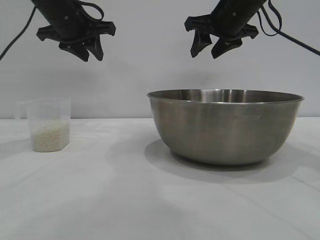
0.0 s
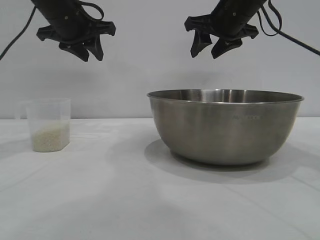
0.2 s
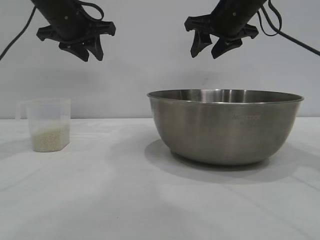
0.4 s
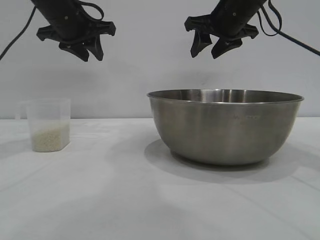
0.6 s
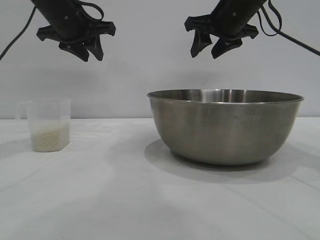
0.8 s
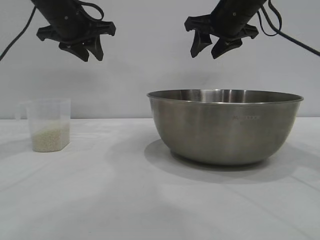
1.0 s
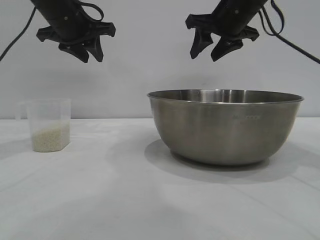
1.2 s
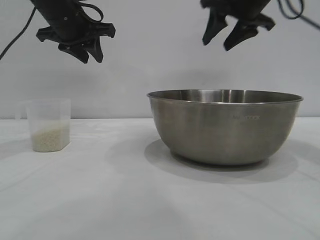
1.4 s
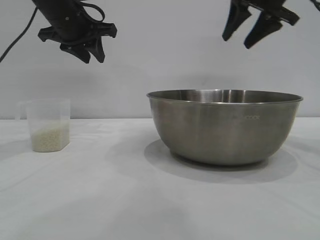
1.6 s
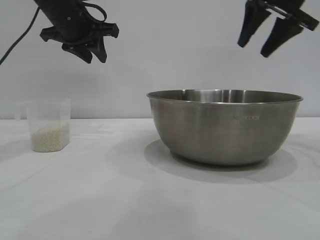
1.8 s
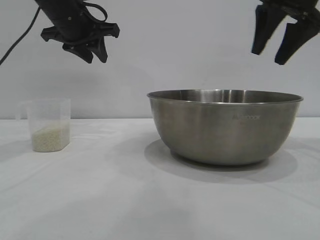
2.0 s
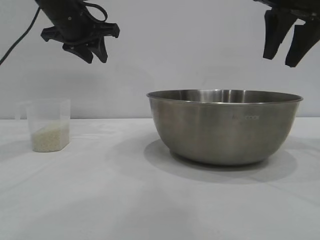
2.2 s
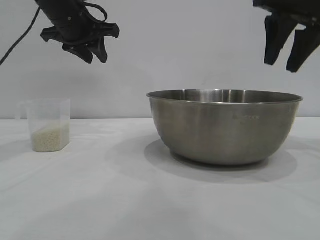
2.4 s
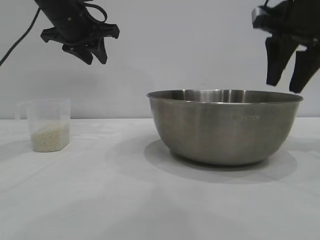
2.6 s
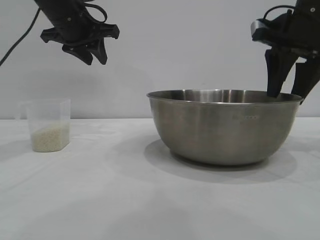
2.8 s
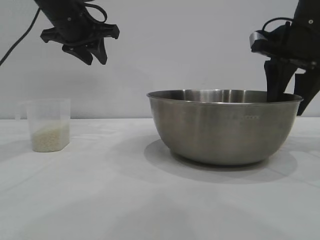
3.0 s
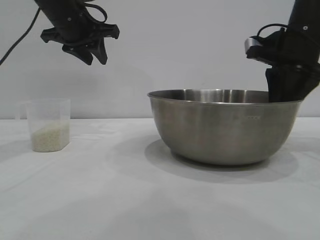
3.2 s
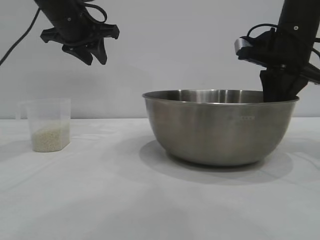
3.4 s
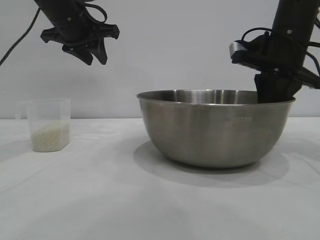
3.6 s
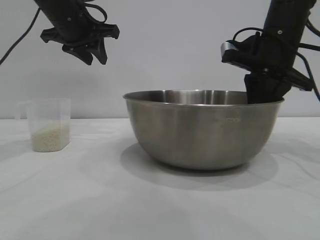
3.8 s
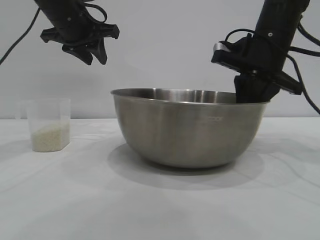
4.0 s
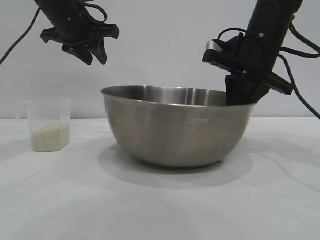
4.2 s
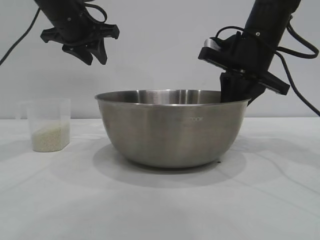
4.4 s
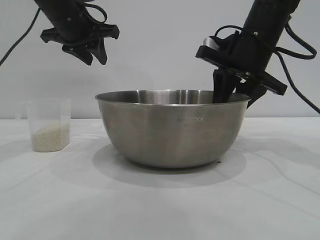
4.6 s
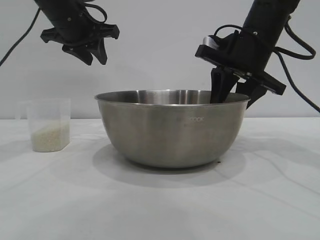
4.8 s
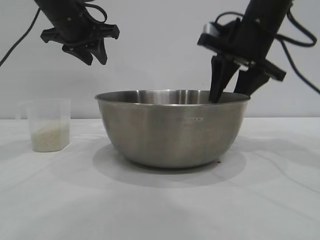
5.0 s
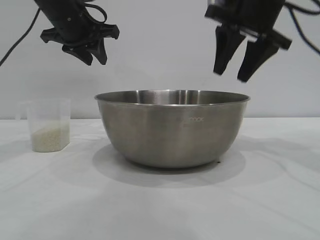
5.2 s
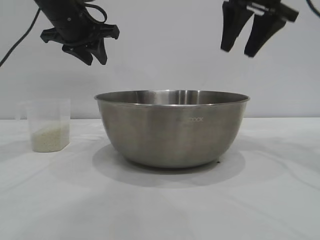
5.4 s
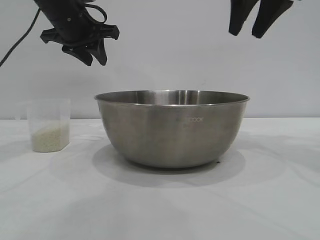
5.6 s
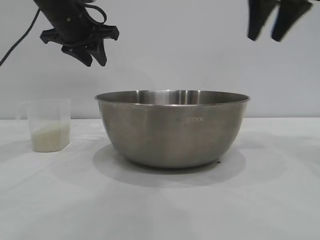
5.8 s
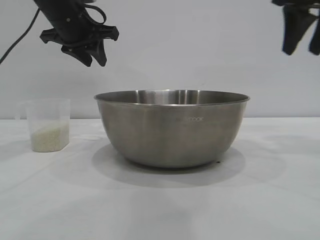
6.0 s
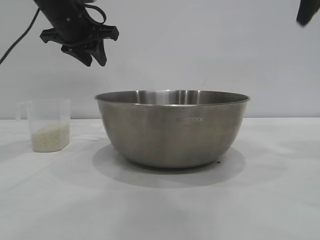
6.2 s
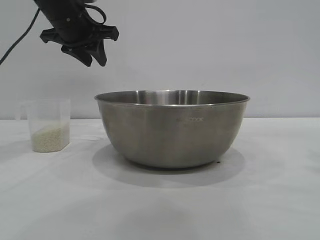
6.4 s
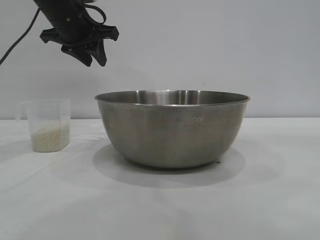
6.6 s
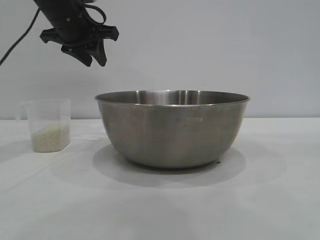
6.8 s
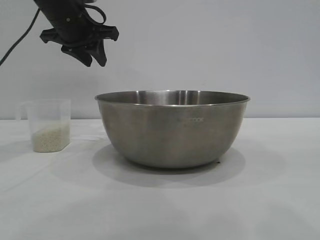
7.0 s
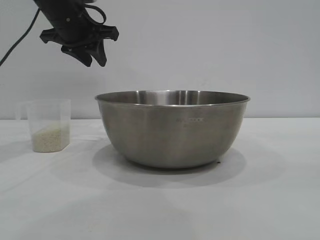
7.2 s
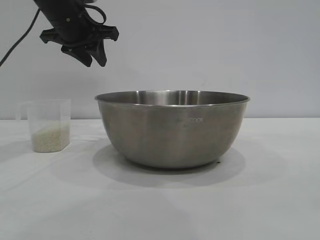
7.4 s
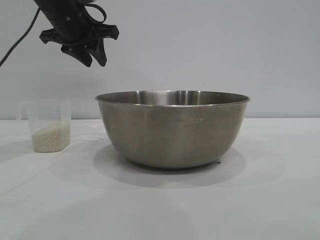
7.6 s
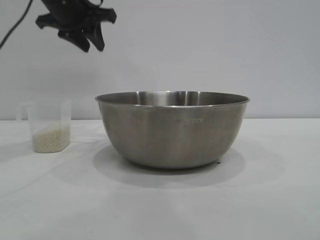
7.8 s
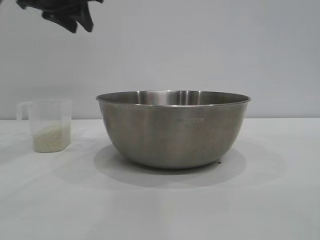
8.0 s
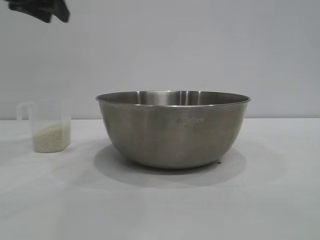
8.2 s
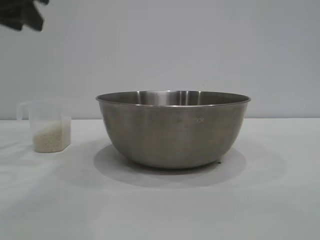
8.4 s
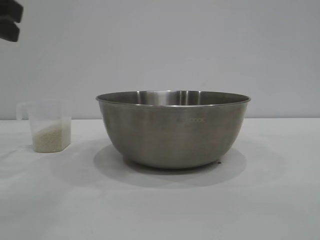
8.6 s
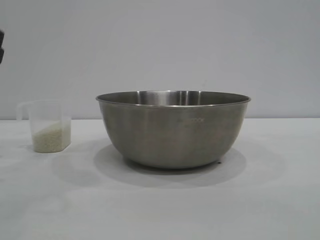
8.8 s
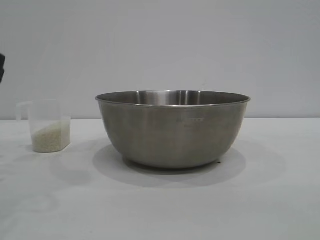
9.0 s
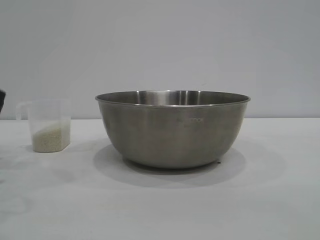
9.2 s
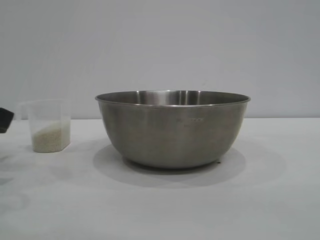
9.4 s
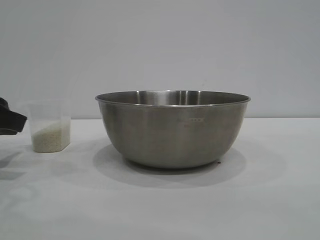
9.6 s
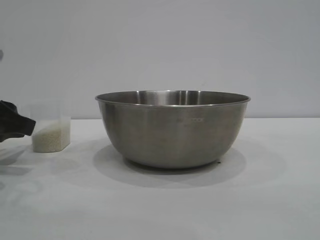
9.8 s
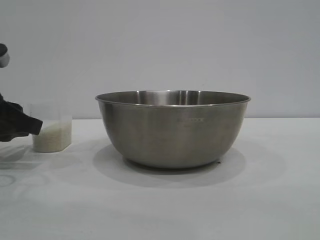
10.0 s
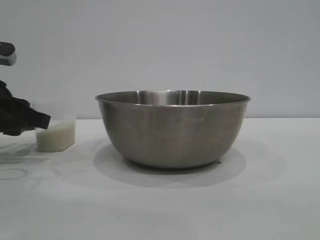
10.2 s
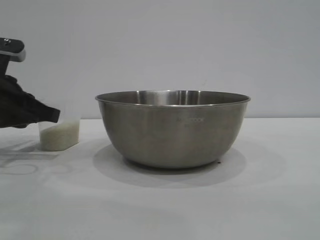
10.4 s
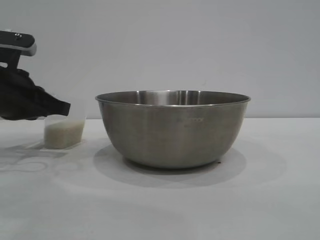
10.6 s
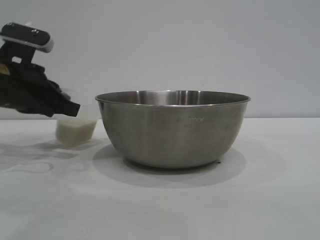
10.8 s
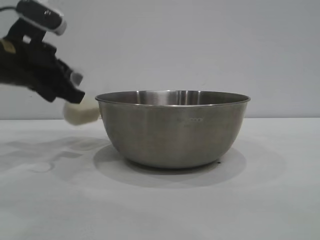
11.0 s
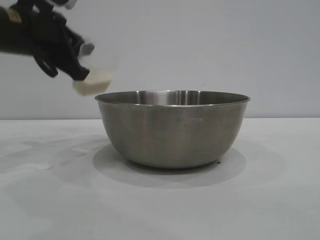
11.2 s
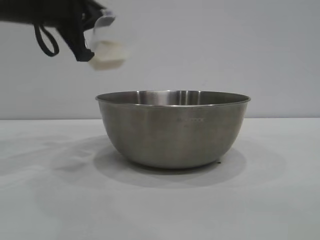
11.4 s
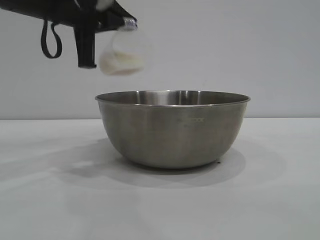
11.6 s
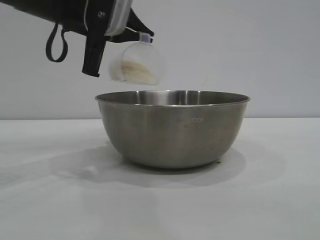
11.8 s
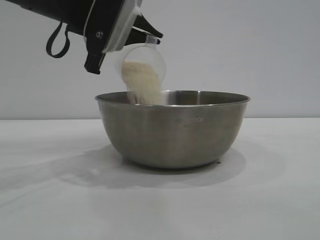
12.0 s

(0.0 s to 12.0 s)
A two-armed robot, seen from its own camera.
Task of the whole recording: the right gripper grasp the rice container and place it in the center of the table, the left gripper grasp the rice scoop and pour the rice into the rice container.
Step, 0.0 s - 5.0 s: Move the bowl to the center of view with the right gripper.
Step, 5.2 s - 11.0 s: Pick up the cup with rice in it with the left gripper.

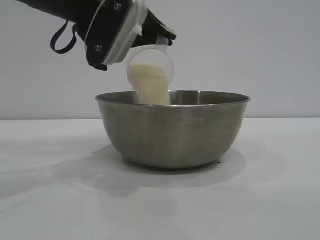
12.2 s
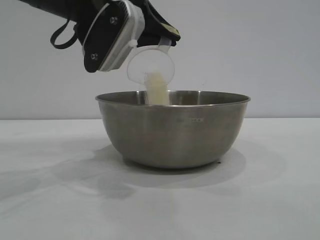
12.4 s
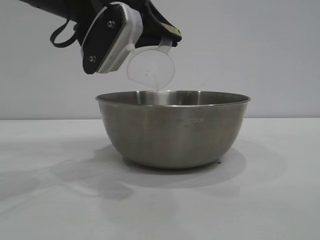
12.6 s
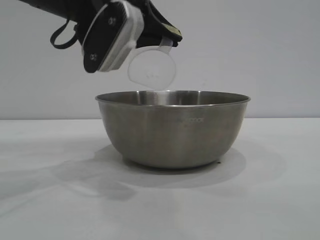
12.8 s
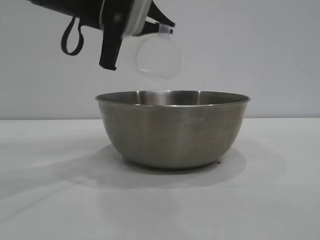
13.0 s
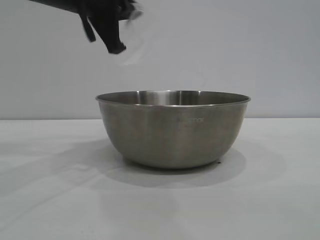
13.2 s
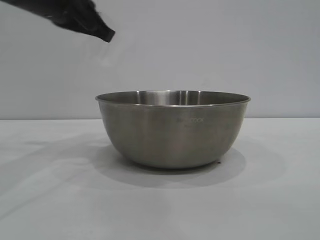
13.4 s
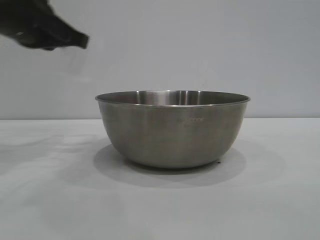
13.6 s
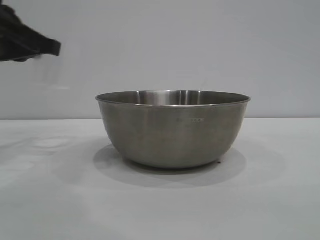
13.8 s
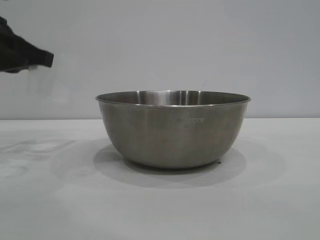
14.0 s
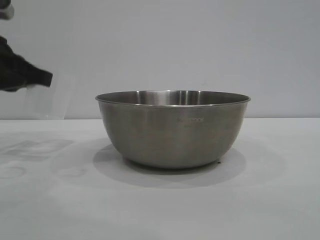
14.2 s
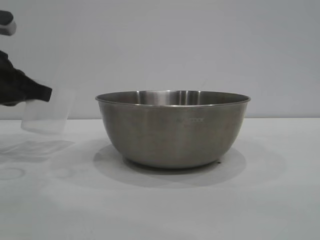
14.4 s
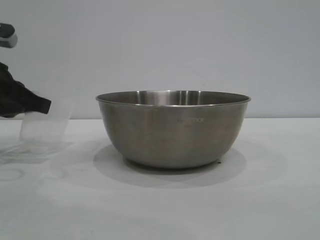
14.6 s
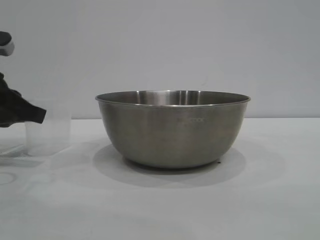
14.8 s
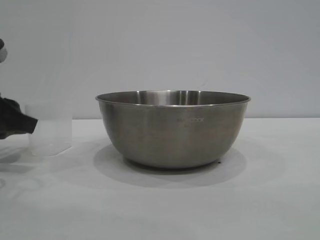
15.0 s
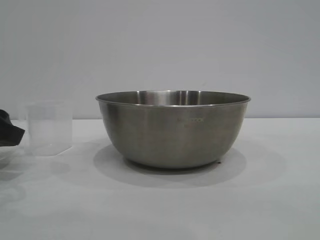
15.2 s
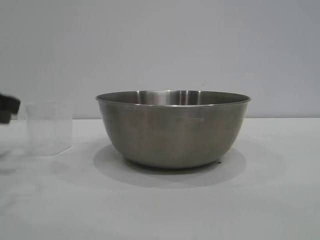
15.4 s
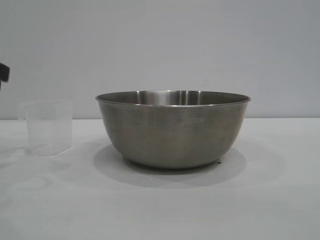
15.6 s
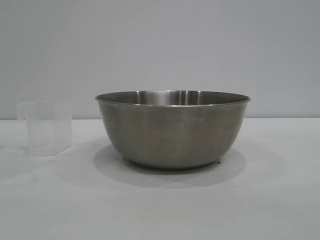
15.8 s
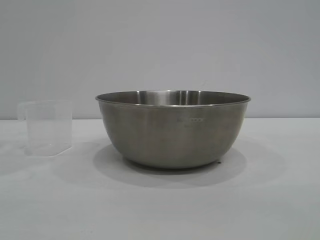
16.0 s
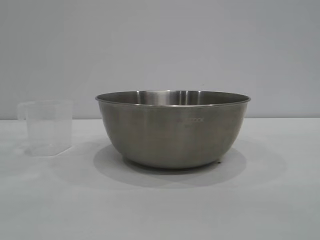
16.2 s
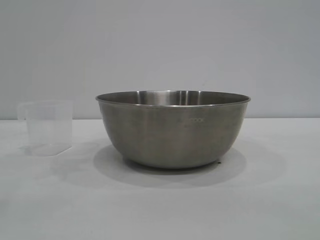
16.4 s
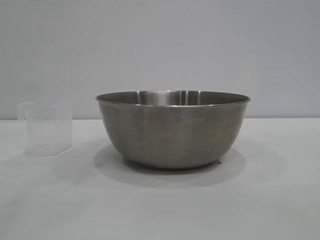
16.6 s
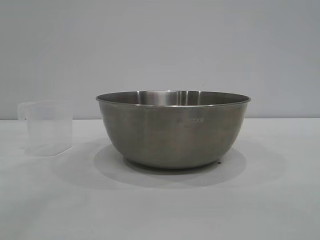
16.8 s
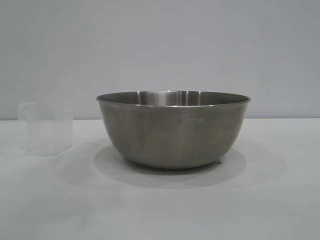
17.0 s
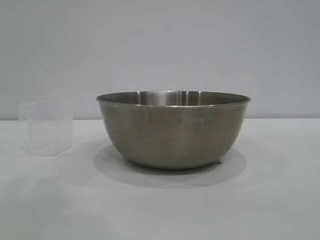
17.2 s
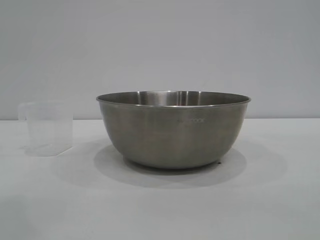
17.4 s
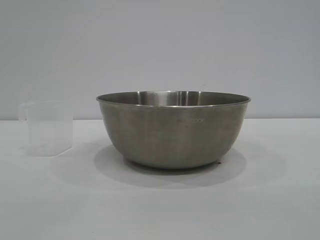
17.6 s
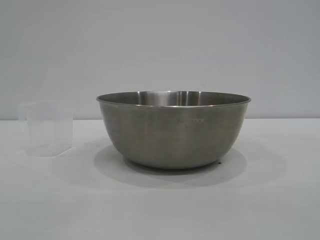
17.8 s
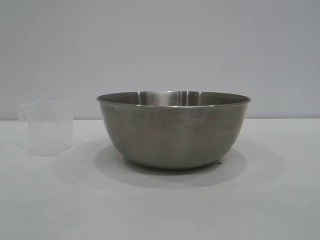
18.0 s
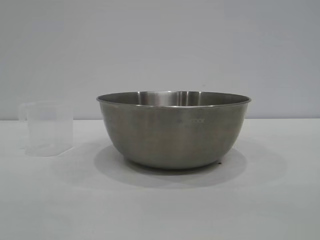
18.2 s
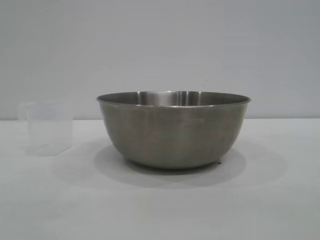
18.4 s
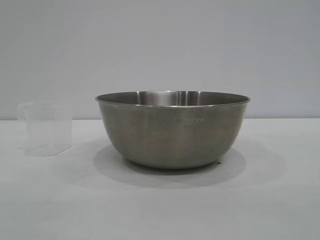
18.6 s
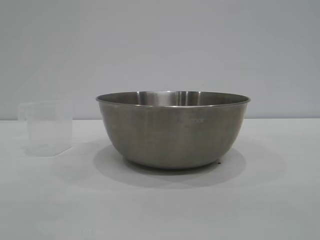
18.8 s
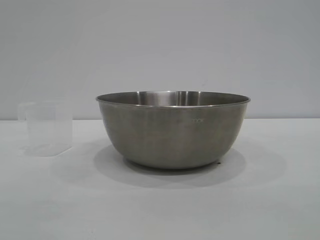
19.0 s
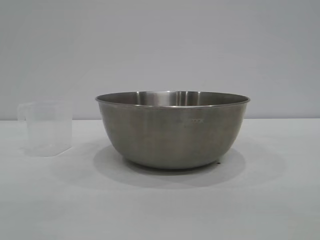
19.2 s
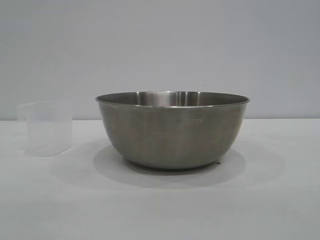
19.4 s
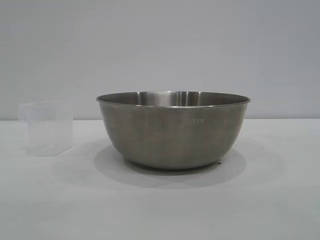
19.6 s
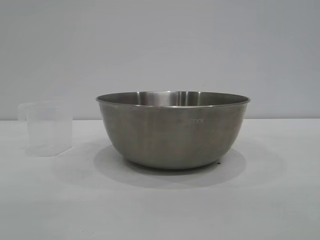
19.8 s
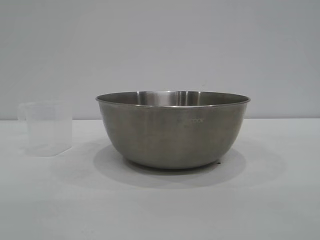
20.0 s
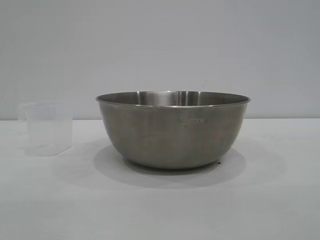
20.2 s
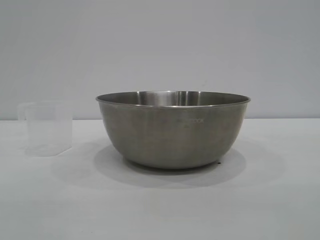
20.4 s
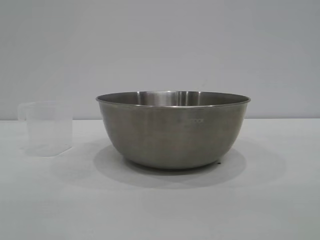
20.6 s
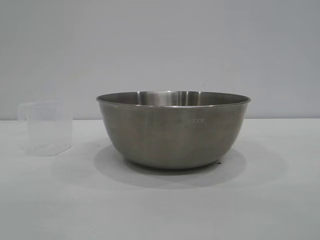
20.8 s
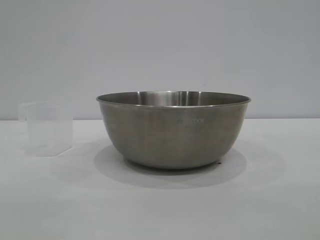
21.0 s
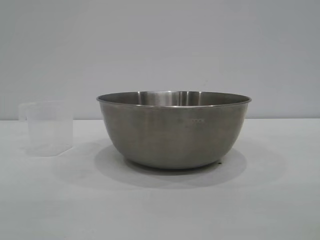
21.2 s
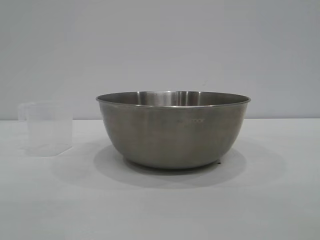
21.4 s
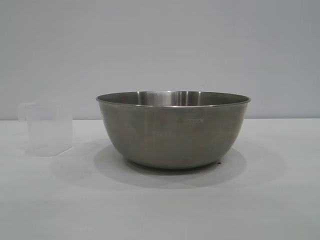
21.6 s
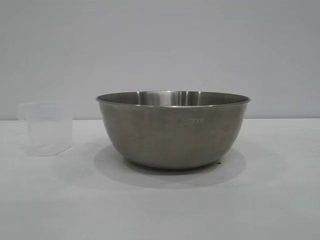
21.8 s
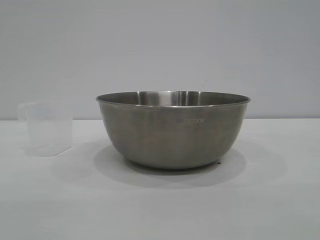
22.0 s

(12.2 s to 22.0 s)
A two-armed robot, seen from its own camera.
Task of the whole recording: the right gripper grasp the rice container and place it in the center of the table, the left gripper grasp the rice scoop and pour the rice into the rice container.
Step, 13.4 s - 15.2 s: Place the cup on the table with the left gripper.
